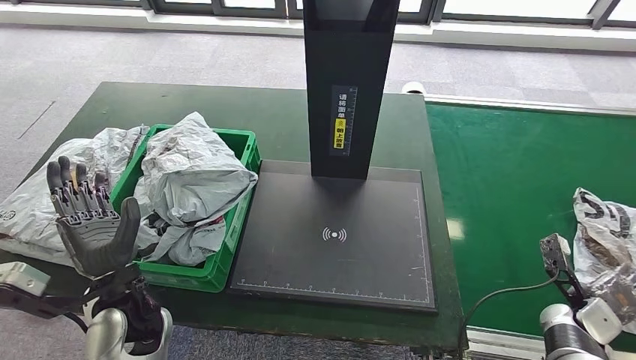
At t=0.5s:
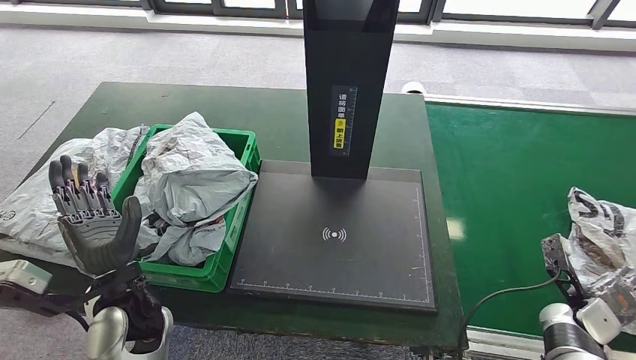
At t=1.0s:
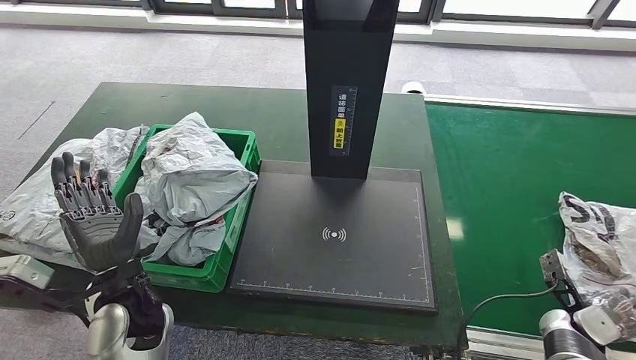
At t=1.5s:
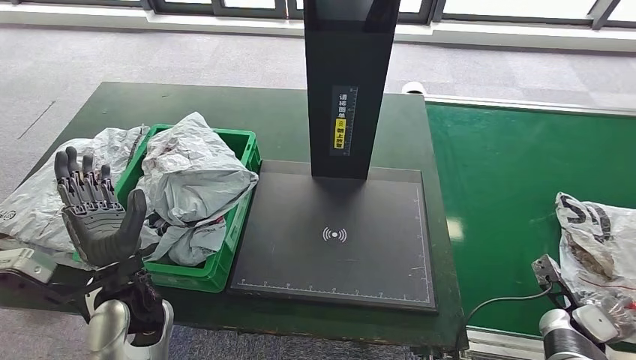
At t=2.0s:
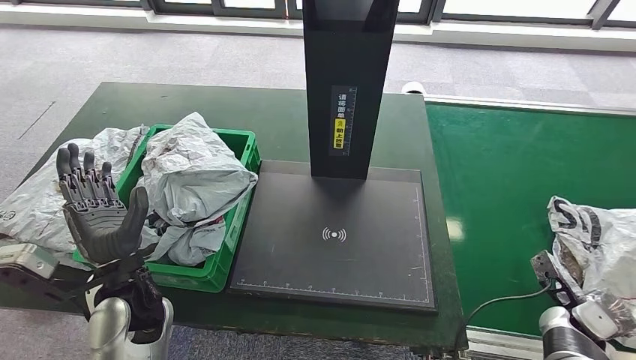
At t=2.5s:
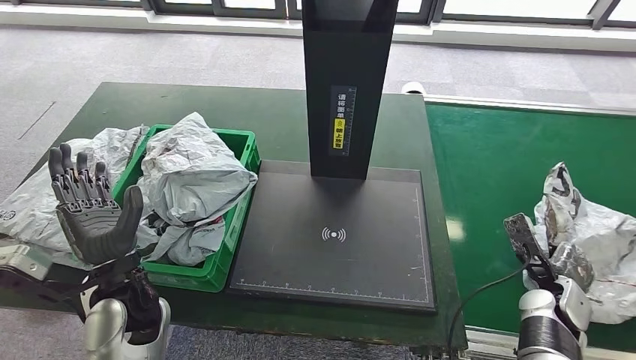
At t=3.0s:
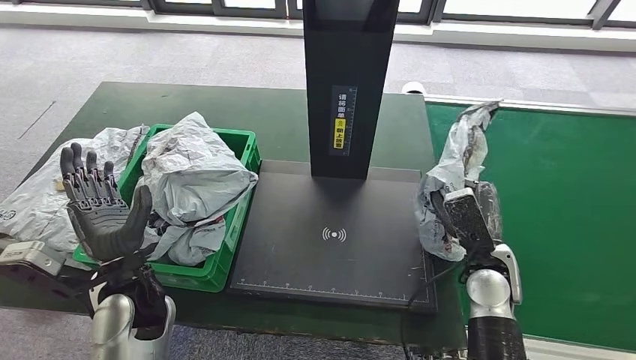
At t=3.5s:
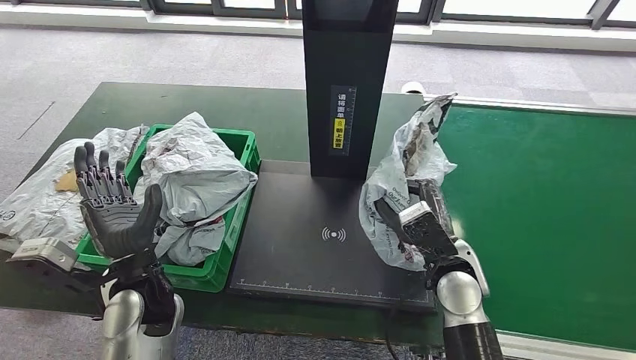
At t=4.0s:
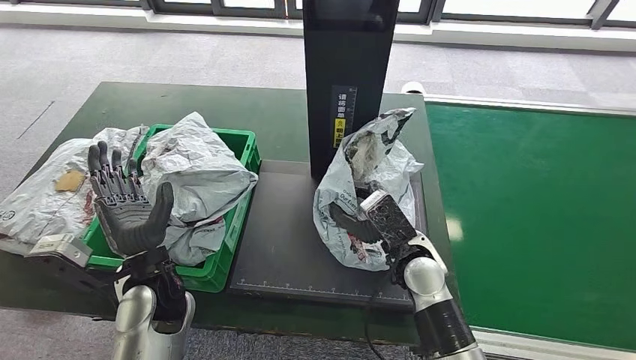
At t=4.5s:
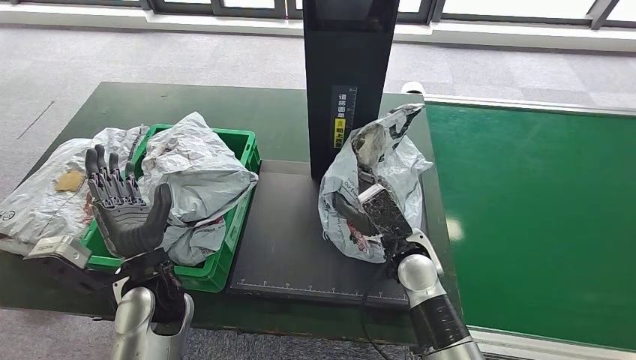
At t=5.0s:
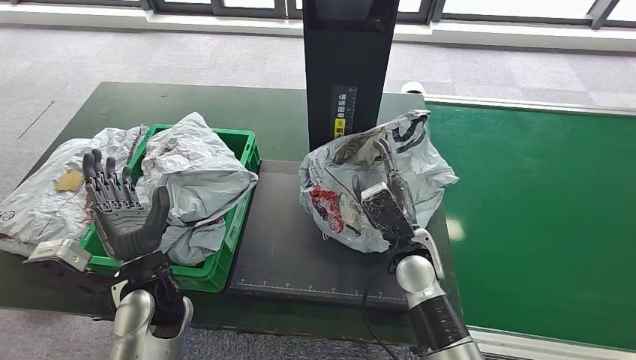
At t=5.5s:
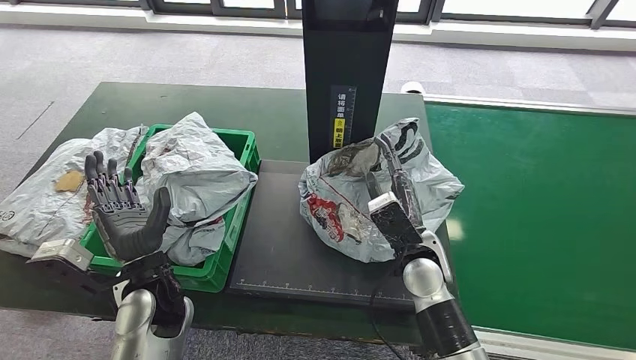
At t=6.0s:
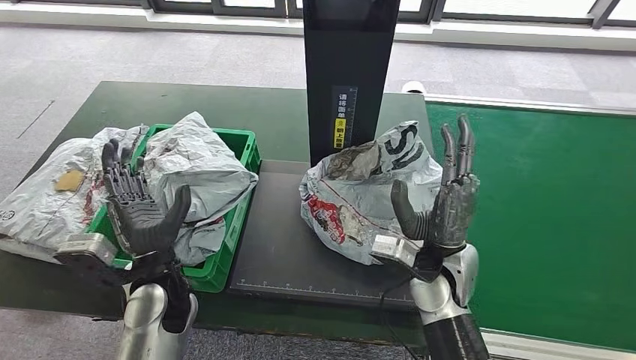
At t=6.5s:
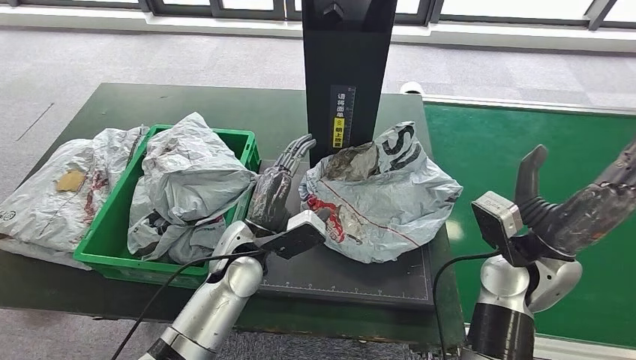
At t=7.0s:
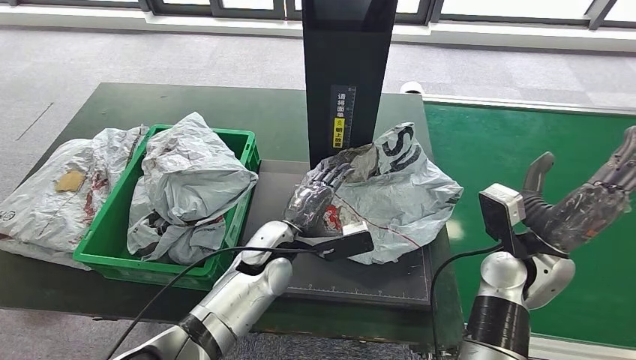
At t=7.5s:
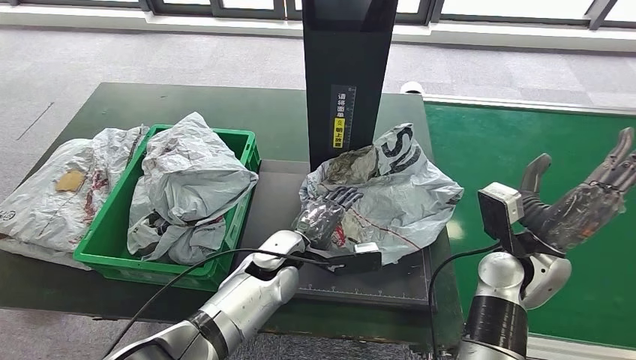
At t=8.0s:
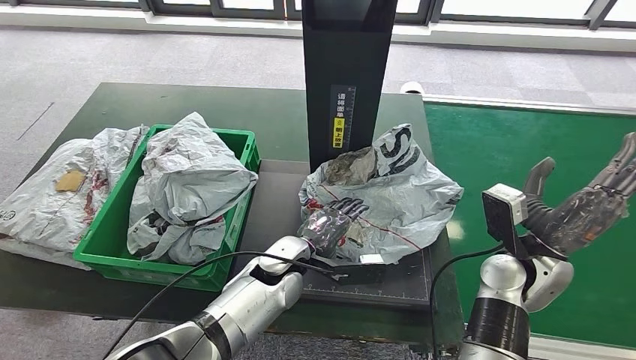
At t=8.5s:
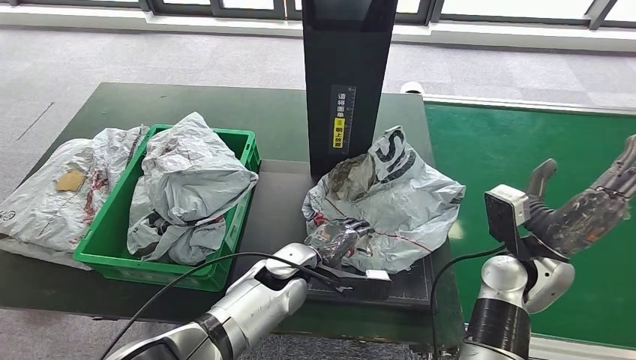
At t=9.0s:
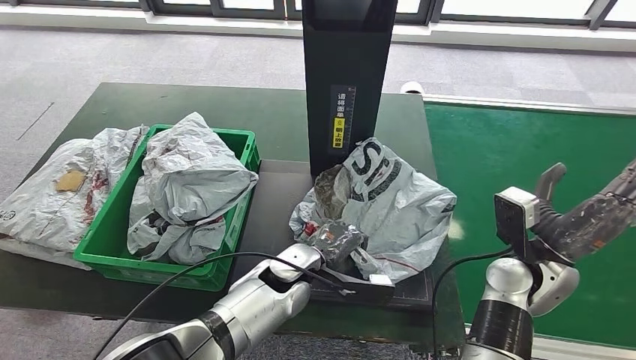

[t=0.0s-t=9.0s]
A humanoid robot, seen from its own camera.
Step, t=0.0s to t=2.5s: Pick up the parcel from the conveyor belt.
Step, t=3.5s to t=6.5s: Place the parcel onto the inbound machine.

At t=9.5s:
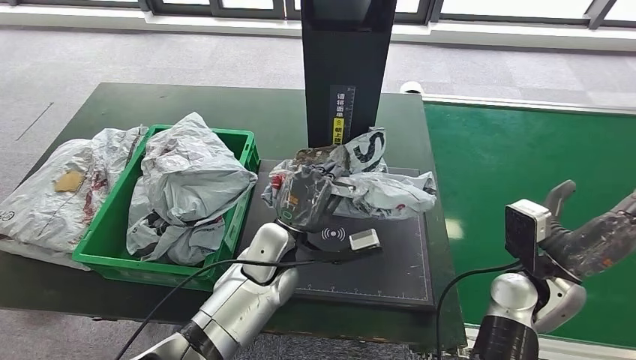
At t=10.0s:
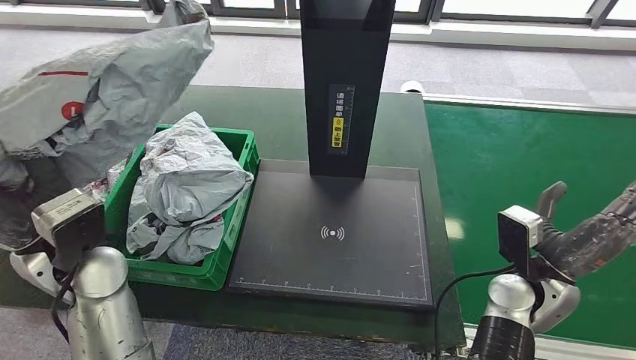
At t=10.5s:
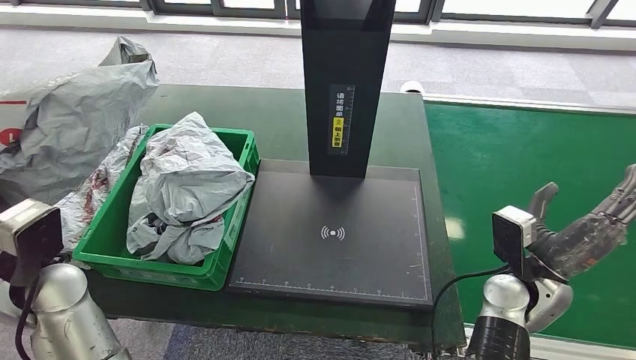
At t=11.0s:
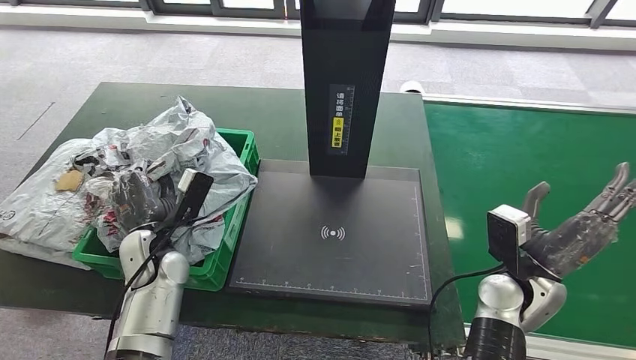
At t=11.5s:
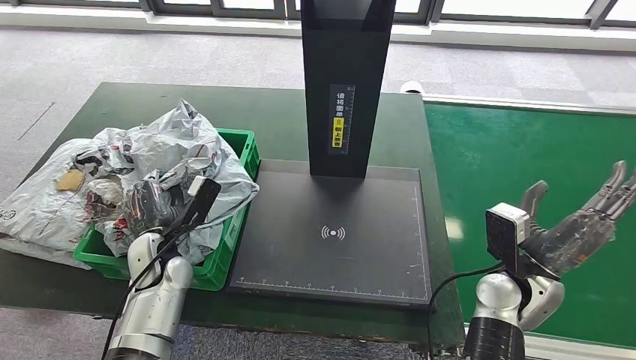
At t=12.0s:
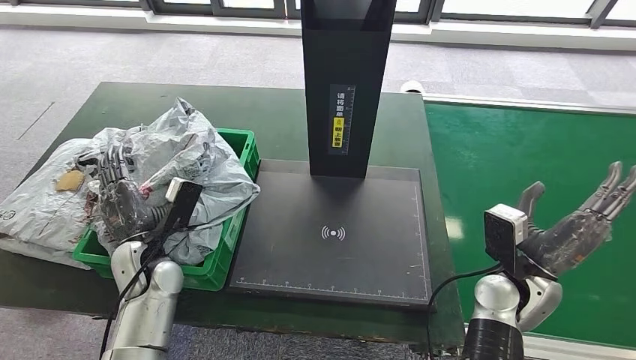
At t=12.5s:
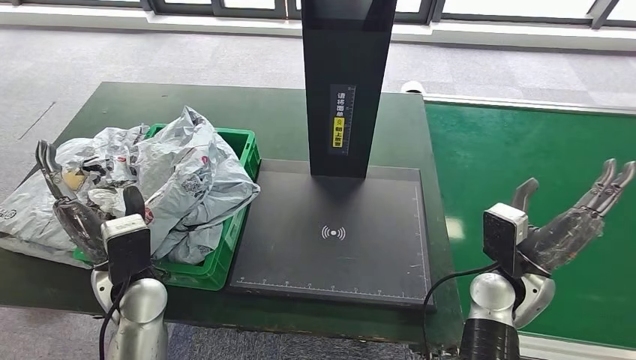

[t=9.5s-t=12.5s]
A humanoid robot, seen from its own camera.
Step, t=10.5s to t=12.5s: Place the parcel into the delivery box.
t=11.0s to t=12.5s: The left hand heads backward, covering about 5 cm.

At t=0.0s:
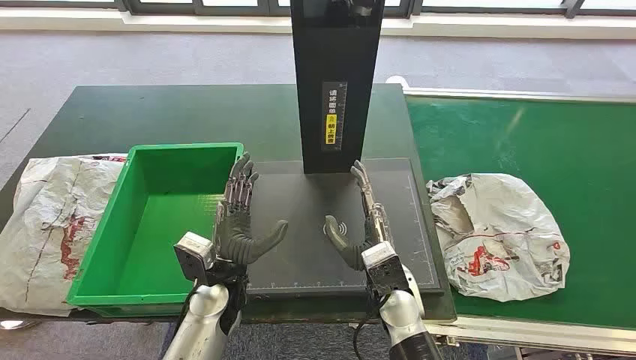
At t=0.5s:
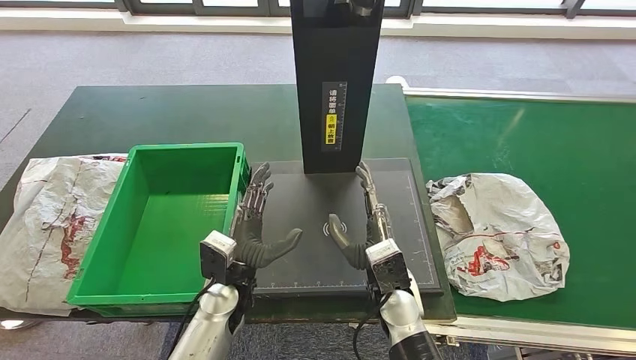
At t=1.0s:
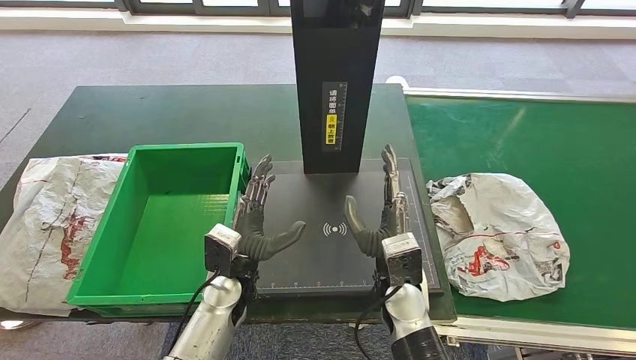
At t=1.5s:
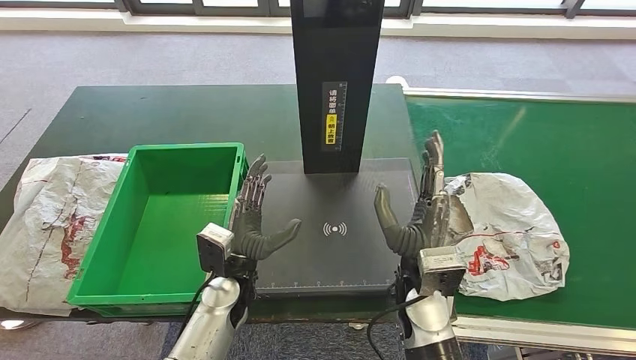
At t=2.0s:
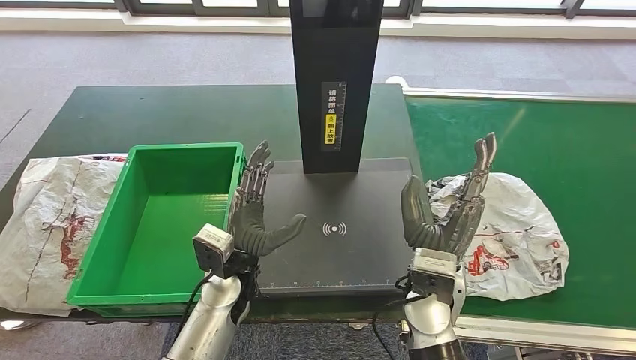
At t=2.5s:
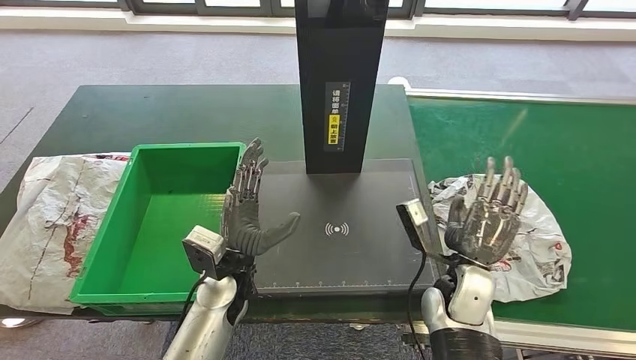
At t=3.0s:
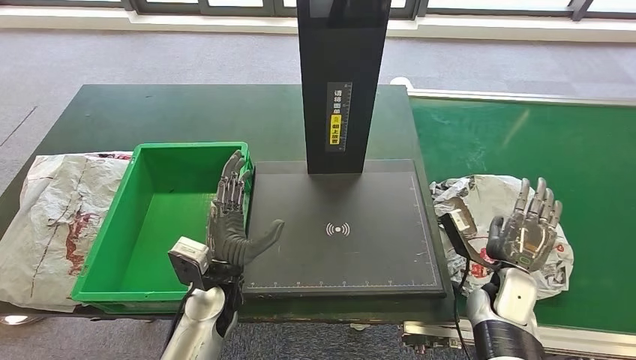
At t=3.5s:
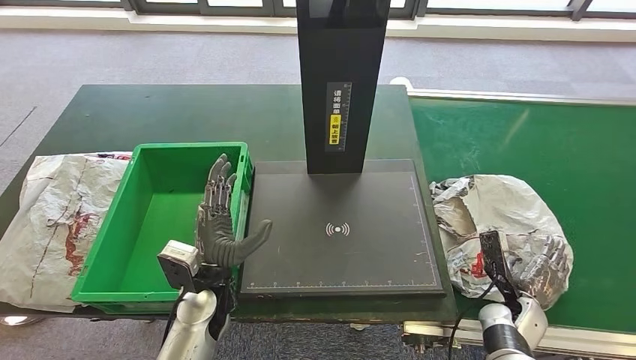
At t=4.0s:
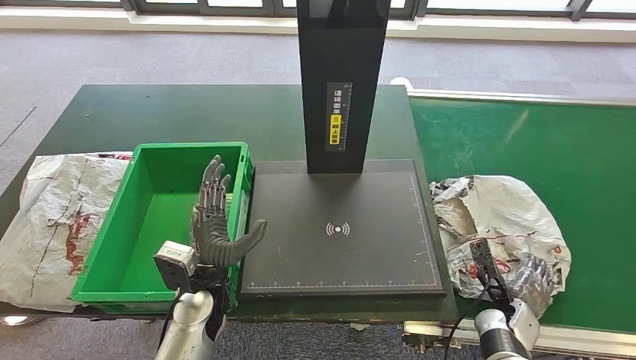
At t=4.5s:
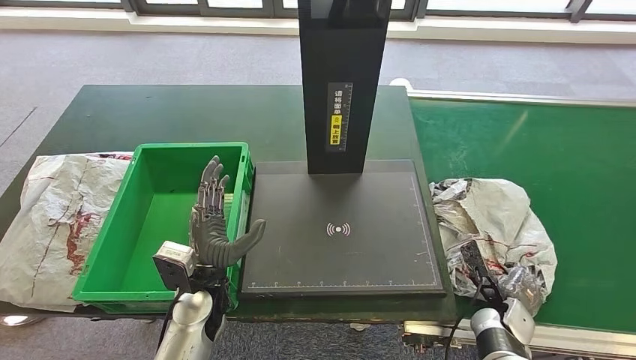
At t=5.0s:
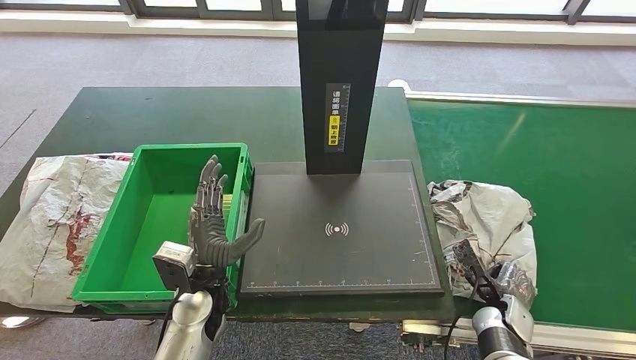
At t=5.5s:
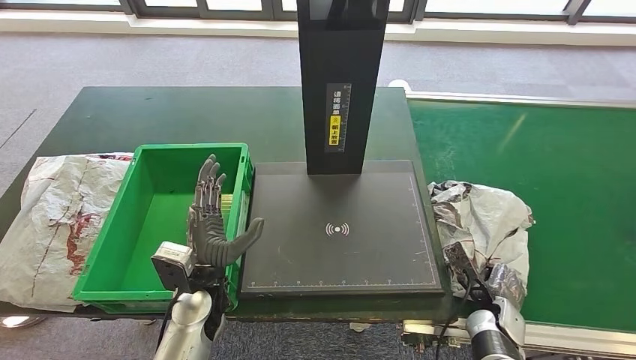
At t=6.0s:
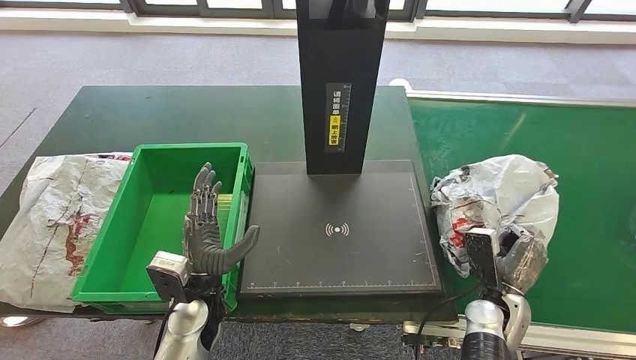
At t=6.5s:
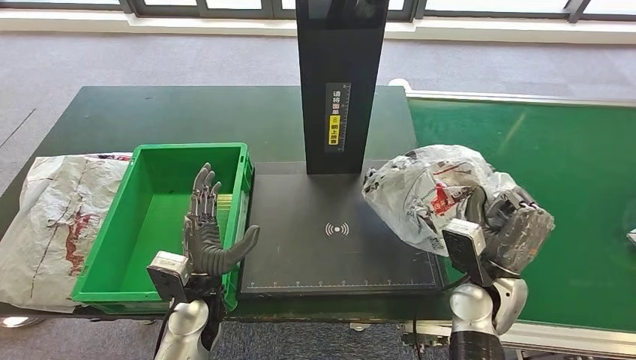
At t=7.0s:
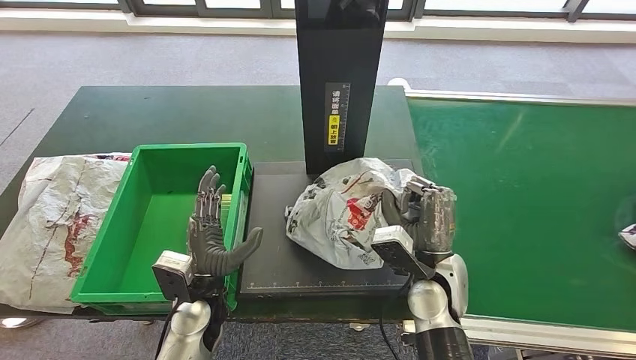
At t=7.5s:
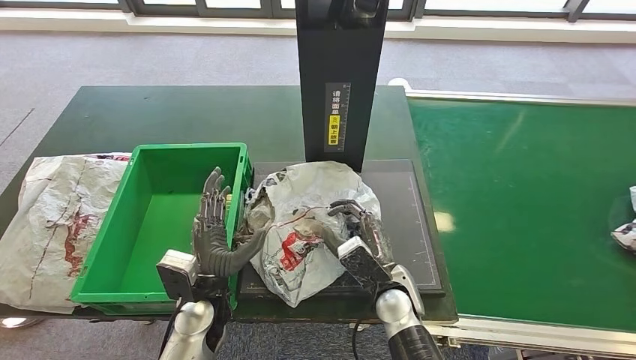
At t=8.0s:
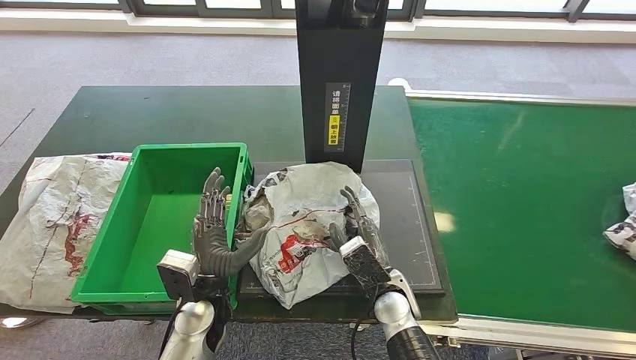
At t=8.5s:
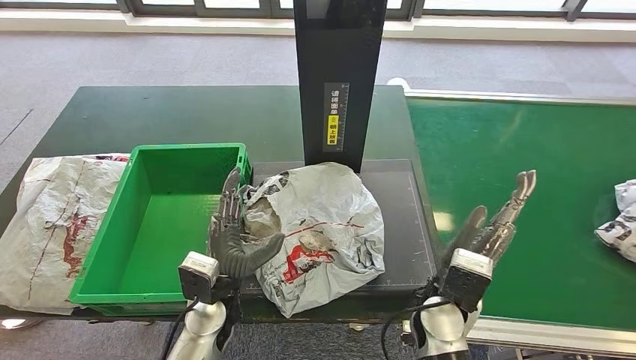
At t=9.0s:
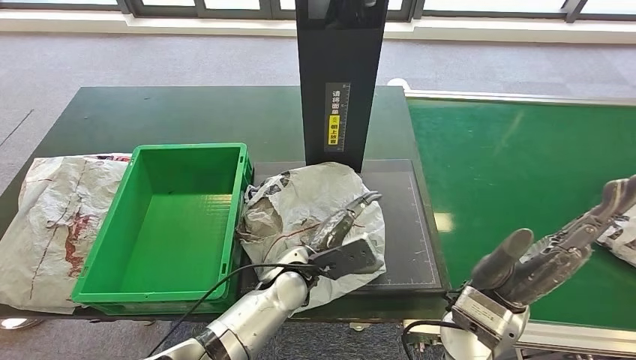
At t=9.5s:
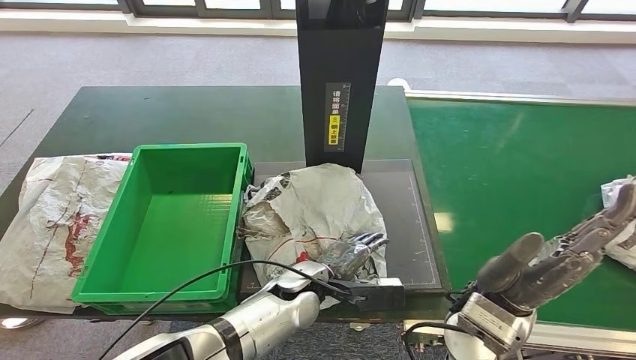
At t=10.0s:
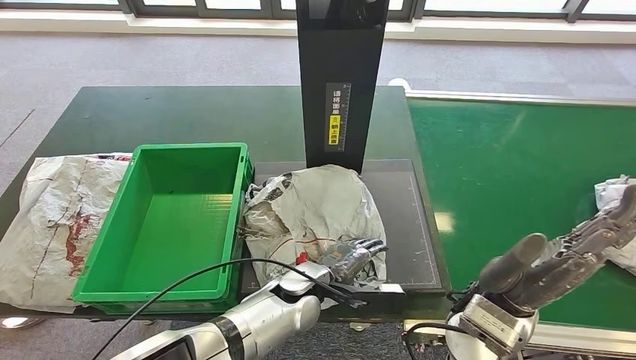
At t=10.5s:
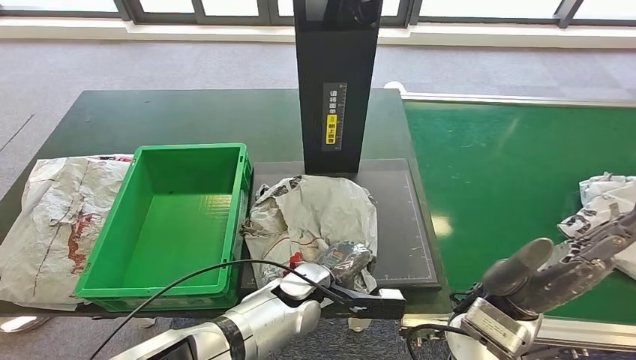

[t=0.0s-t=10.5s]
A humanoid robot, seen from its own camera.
Step, t=0.0s to t=6.0s: Take the parcel off the conveyor belt.
Step, t=6.5s to t=8.5s: Place the parcel onto the inbound machine.
